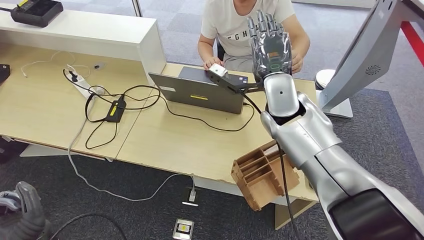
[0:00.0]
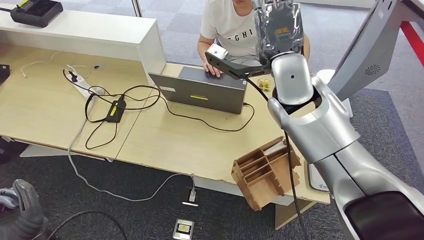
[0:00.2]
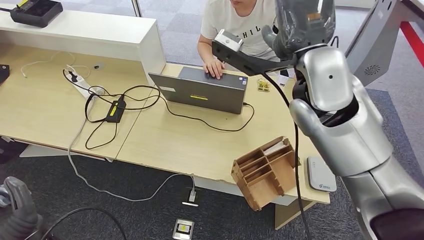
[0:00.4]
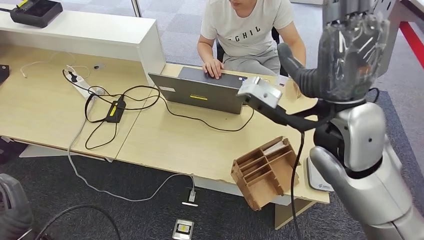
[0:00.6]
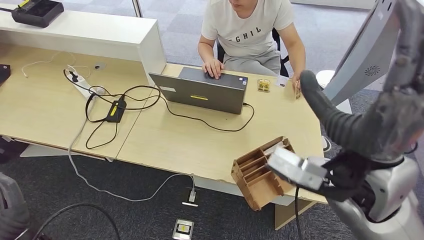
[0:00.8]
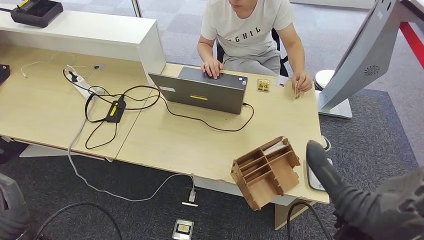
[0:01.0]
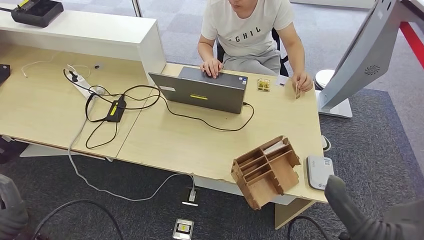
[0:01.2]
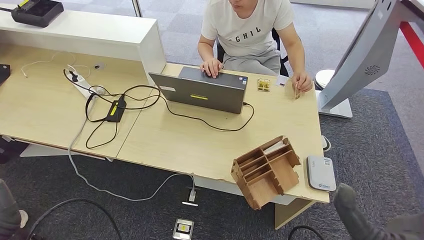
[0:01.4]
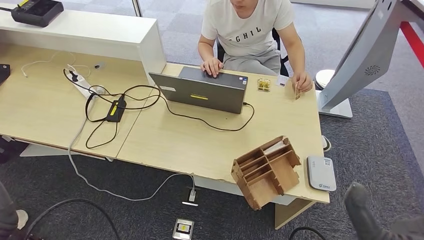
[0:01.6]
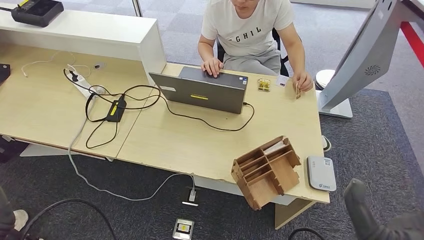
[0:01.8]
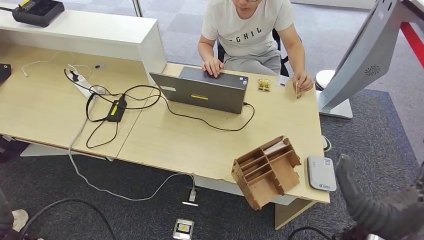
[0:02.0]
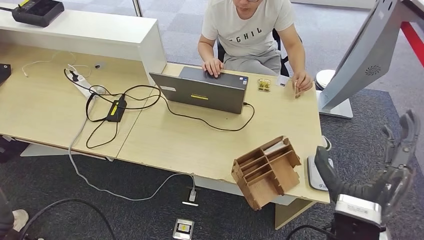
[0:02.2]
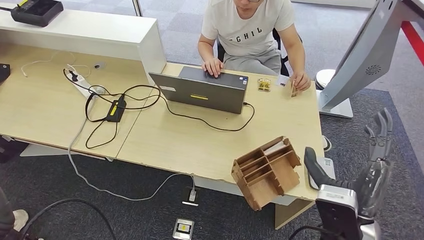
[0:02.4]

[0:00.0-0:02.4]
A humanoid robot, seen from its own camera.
Step, 0:00.0 to 0:02.4: Hand the room key to the person.
0:00.0 to 0:01.2: The left hand travels upward by about 5 cm. Meanwhile the right hand is displaced backward and to the right by approximately 25 cm.
0:01.2 to 0:02.4: The right hand heads downward, covering about 5 cm.
